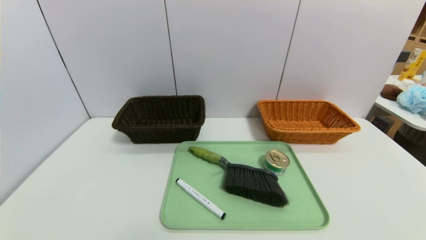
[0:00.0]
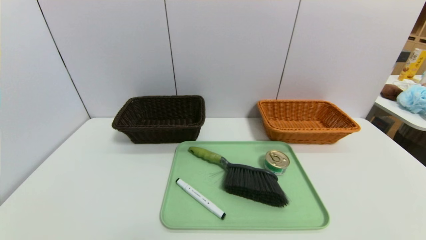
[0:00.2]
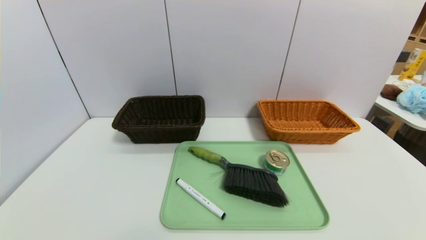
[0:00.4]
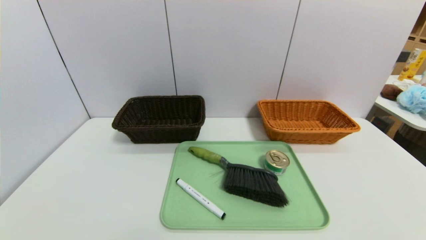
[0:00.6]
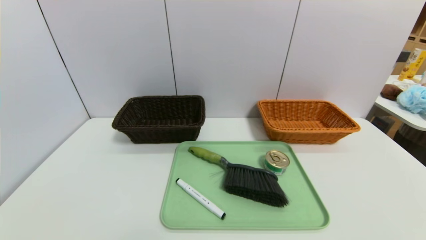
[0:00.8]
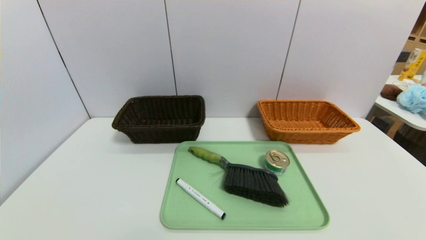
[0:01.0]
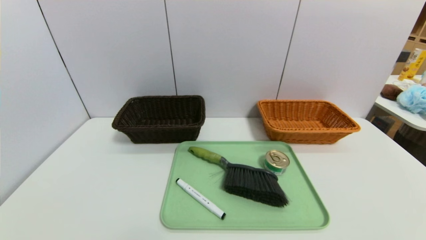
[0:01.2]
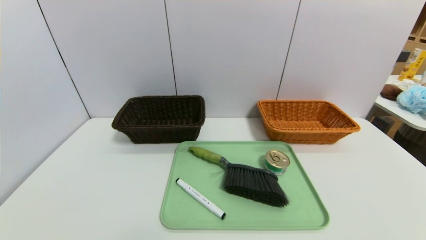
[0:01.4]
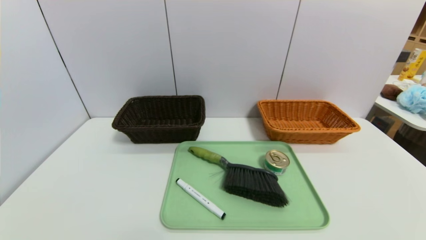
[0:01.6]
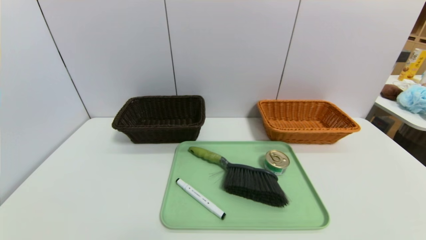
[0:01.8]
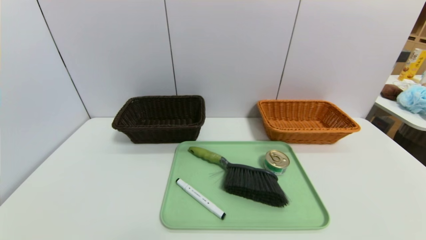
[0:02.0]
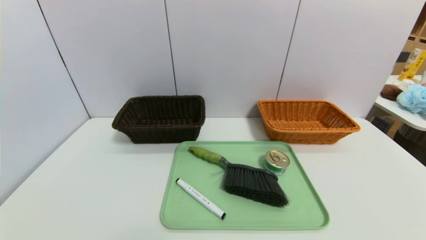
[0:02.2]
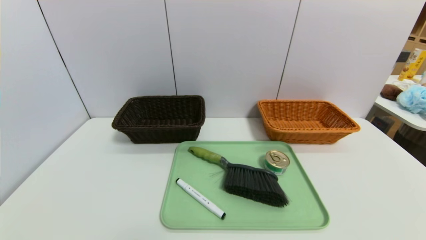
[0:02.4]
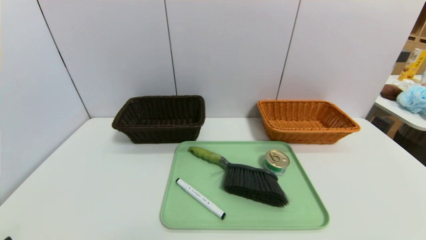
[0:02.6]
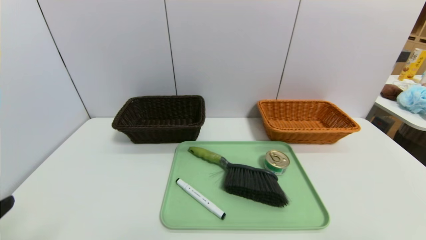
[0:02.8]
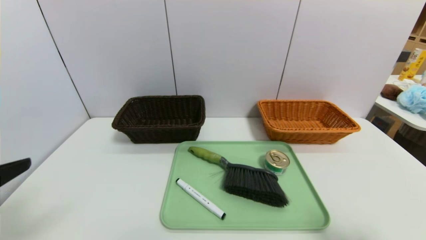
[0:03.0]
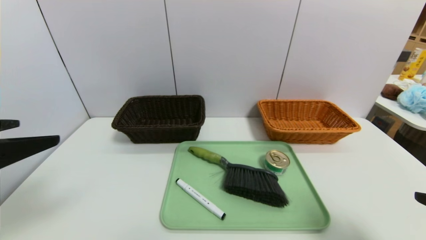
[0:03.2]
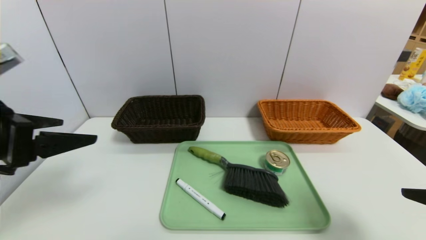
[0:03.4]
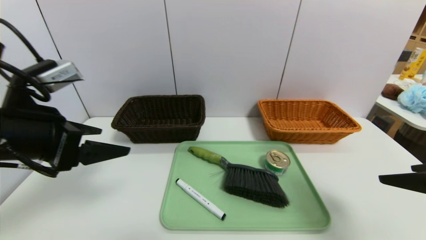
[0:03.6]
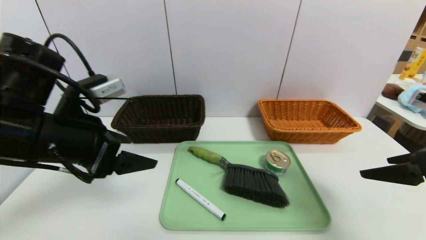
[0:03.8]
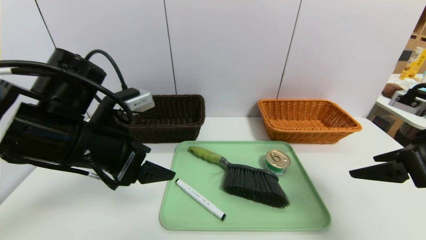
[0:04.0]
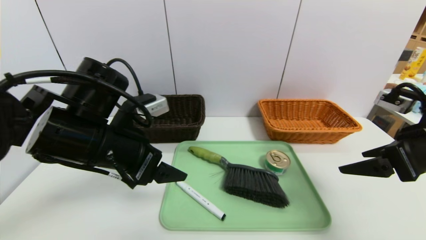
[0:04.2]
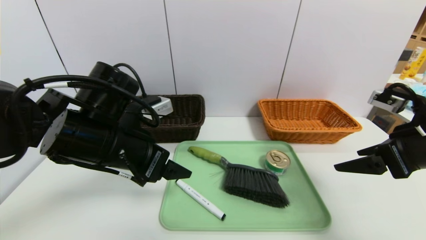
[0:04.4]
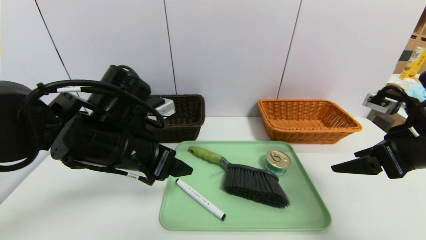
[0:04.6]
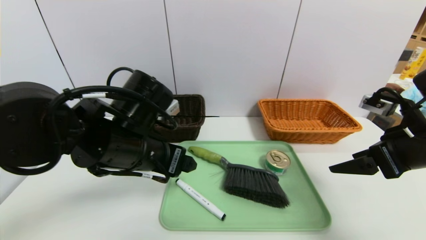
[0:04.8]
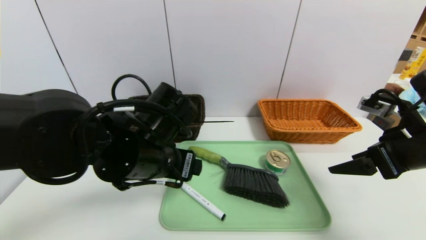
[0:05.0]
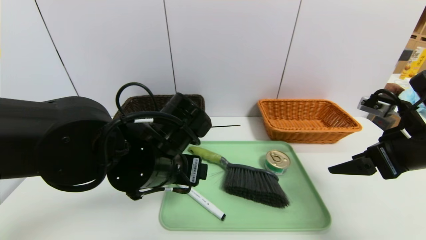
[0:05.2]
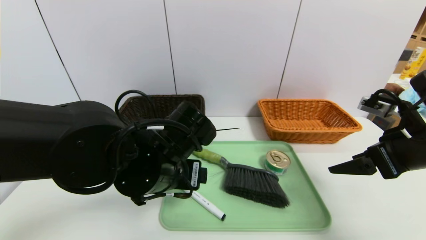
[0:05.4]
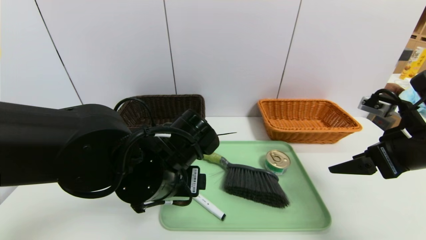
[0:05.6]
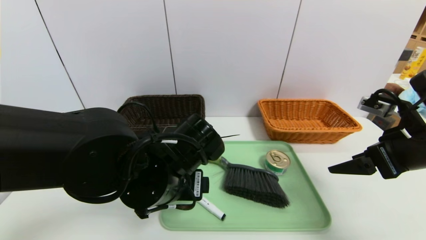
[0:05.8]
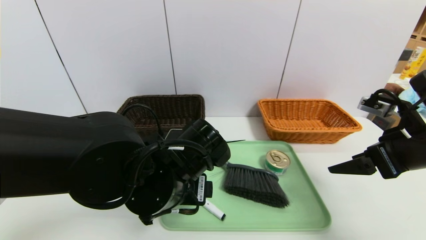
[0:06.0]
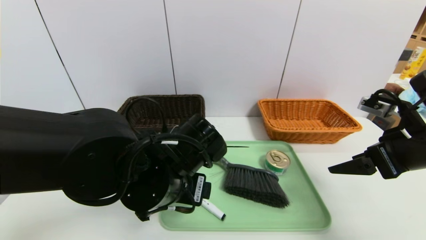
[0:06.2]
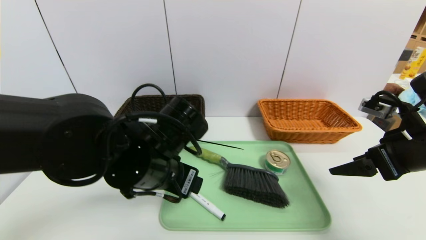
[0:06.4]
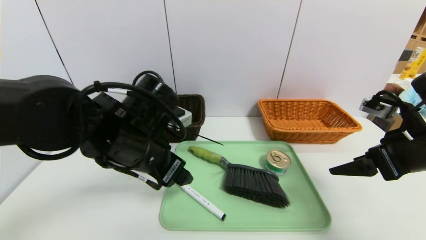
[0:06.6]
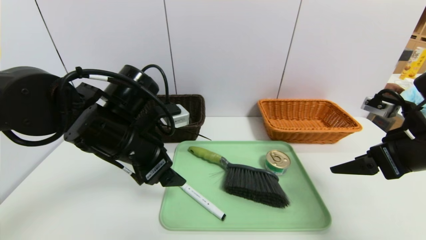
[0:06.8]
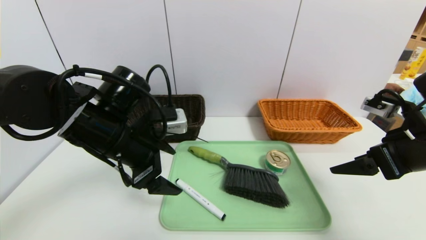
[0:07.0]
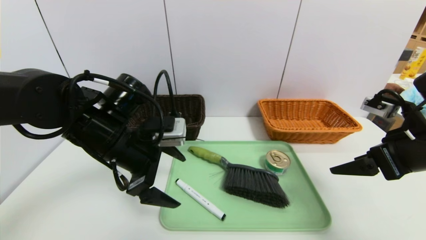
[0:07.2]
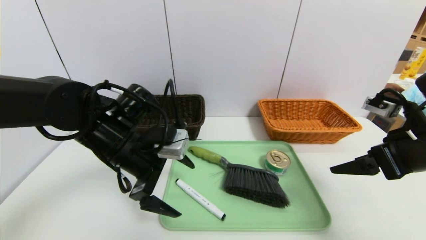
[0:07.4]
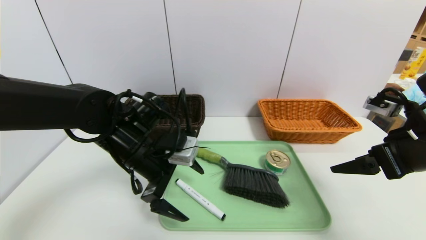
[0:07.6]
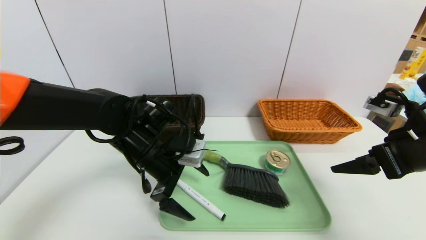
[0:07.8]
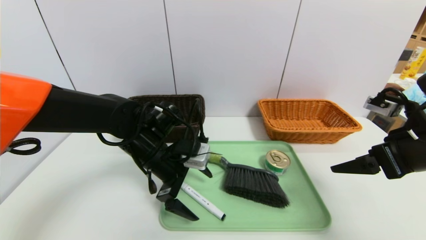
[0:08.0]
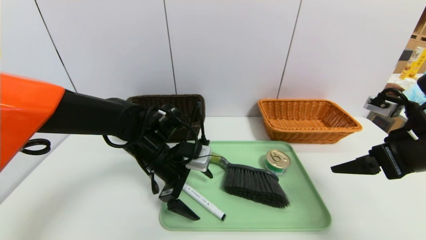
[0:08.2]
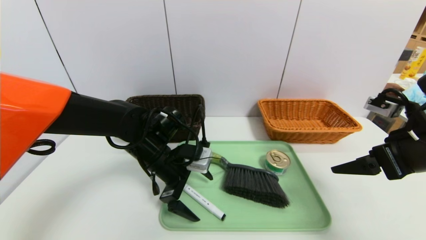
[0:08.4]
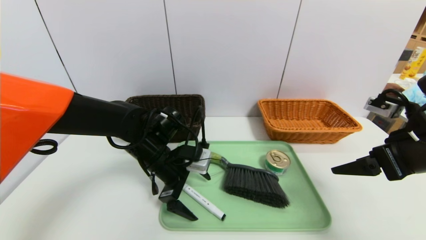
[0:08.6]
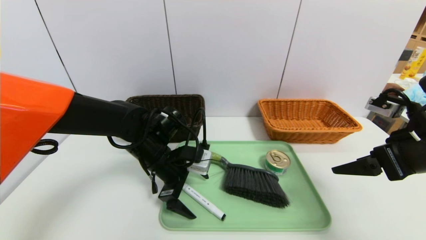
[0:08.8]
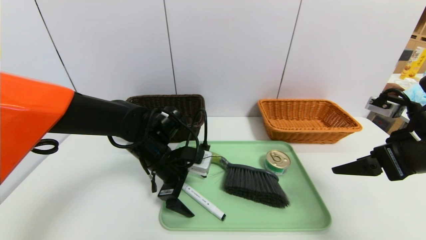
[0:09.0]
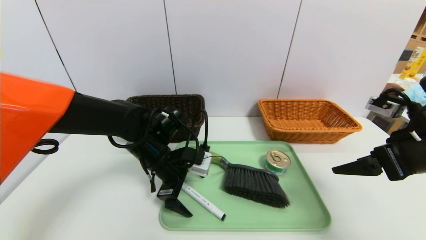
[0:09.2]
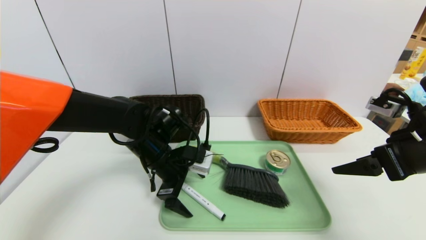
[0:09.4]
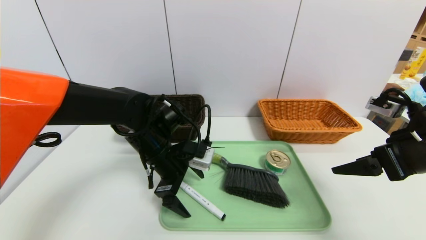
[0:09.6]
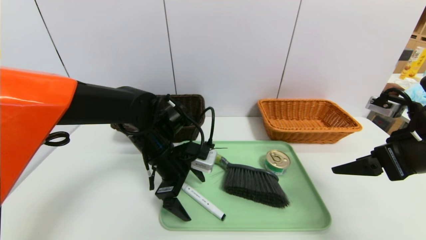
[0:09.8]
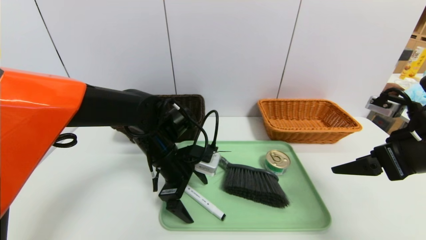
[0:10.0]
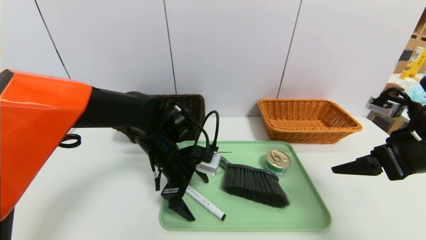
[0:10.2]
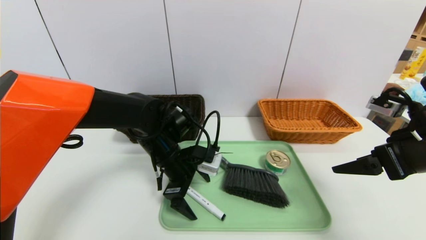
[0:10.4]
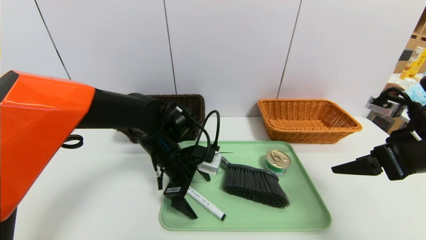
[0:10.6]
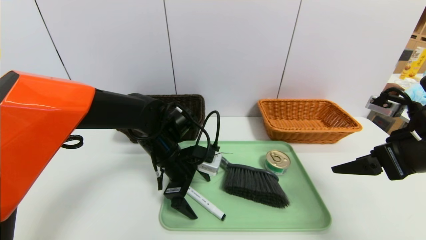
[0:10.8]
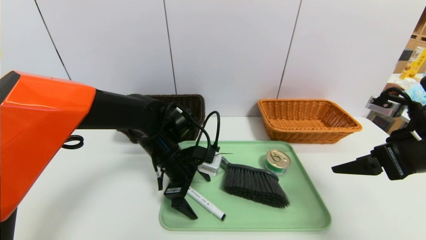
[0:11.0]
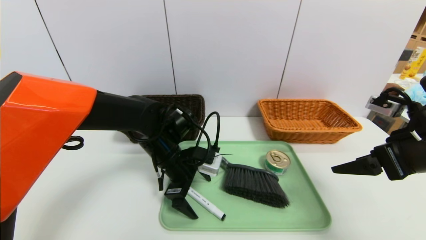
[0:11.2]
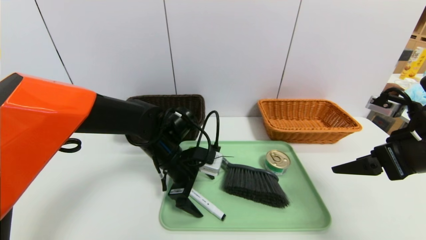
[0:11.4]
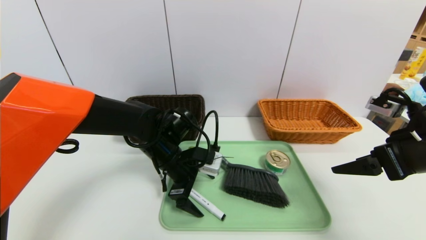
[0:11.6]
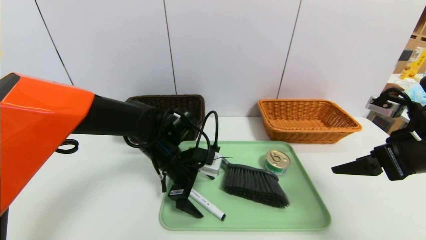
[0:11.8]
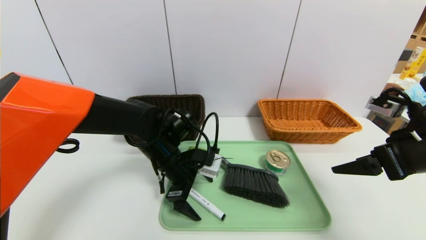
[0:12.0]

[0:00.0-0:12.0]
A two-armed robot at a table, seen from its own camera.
Task of the whole recording: place the food in the right basket with the right gripper, and place the non food items in the left basket with the left gripper.
0:00.0 to 0:01.6: Both grippers stay put.
0:01.6 to 0:03.0: The left gripper travels upward by roughly 20 cm.
0:03.0 to 0:04.4: The left gripper moves forward and to the right, some 20 cm. The right gripper travels forward by about 15 cm.
0:04.4 to 0:06.0: The left gripper goes some 10 cm to the right.
0:06.0 to 0:07.6: The left gripper travels forward and to the left by approximately 10 cm.
0:07.6 to 0:09.0: The left gripper moves roughly 5 cm.
0:09.0 to 0:12.0: The grippers move only a little.

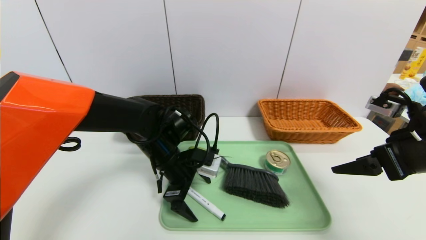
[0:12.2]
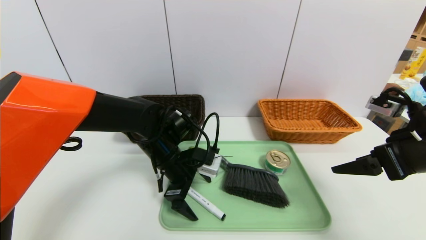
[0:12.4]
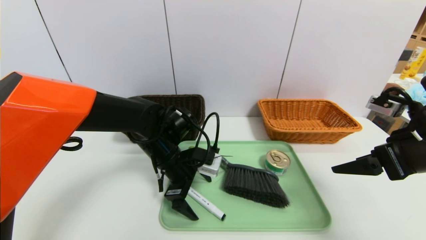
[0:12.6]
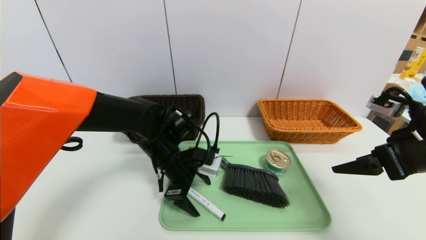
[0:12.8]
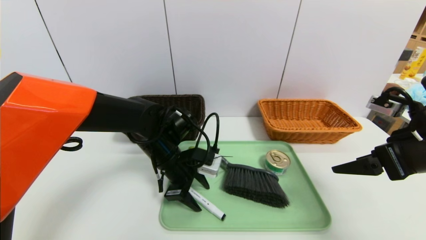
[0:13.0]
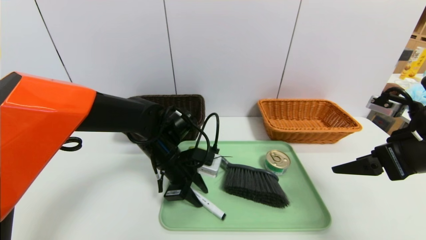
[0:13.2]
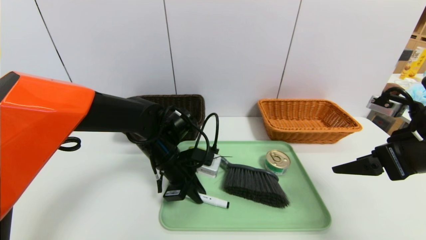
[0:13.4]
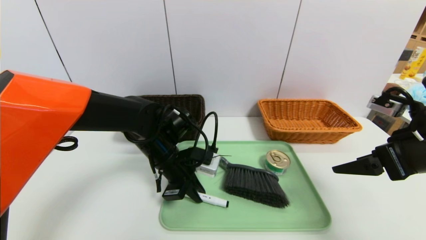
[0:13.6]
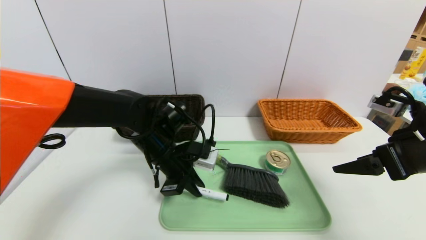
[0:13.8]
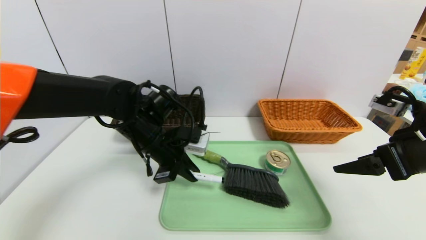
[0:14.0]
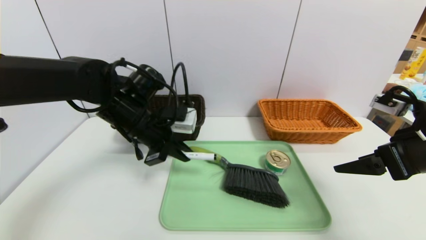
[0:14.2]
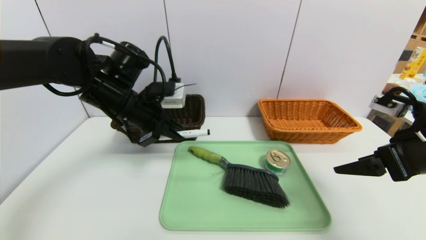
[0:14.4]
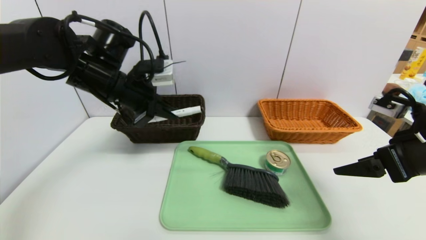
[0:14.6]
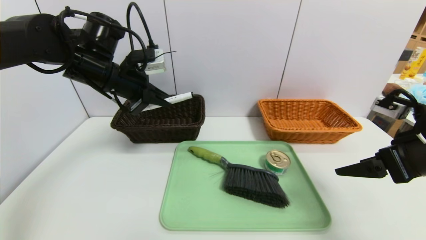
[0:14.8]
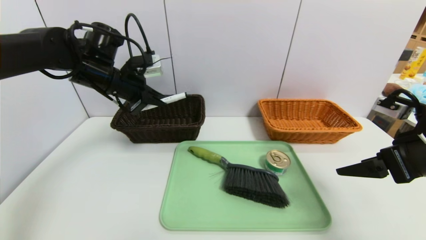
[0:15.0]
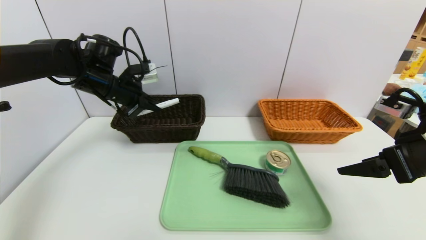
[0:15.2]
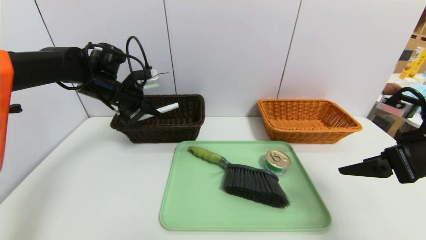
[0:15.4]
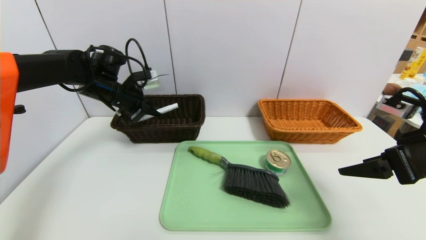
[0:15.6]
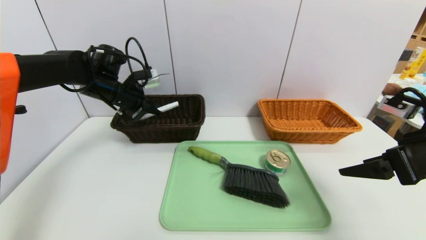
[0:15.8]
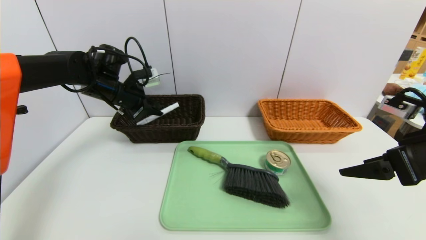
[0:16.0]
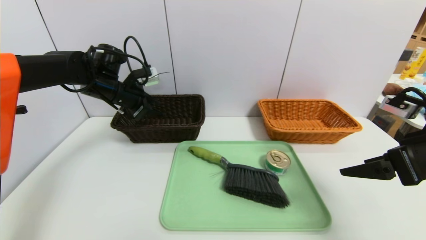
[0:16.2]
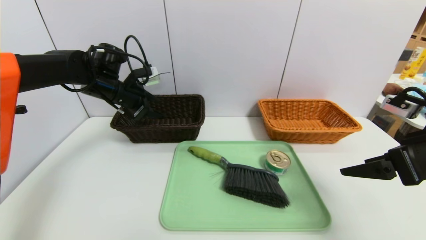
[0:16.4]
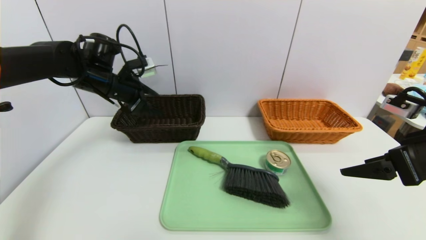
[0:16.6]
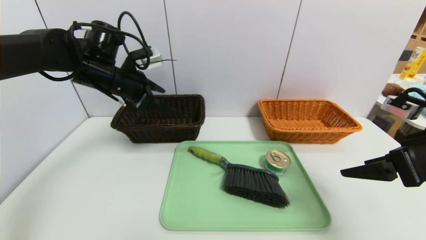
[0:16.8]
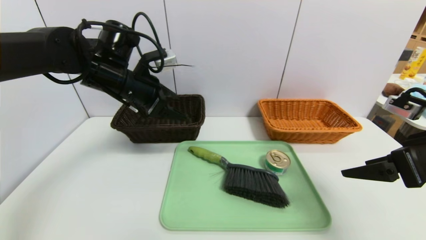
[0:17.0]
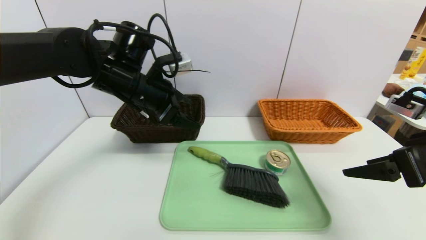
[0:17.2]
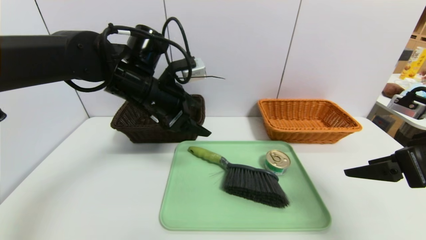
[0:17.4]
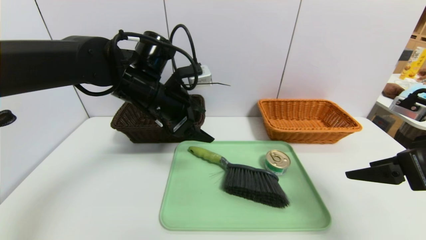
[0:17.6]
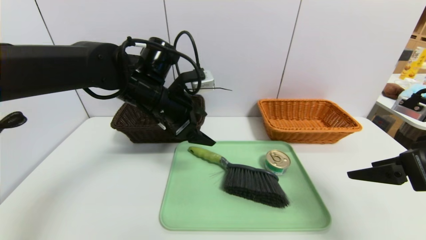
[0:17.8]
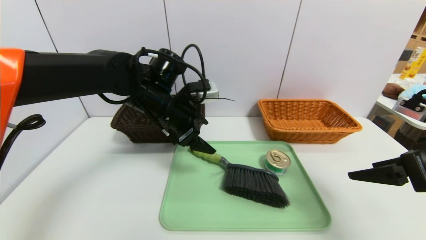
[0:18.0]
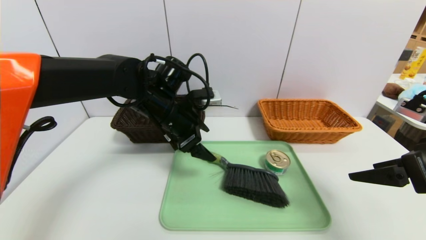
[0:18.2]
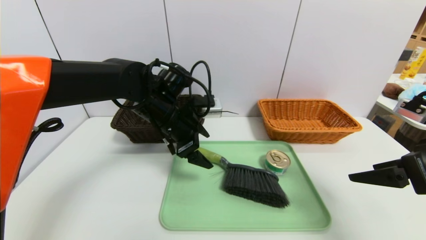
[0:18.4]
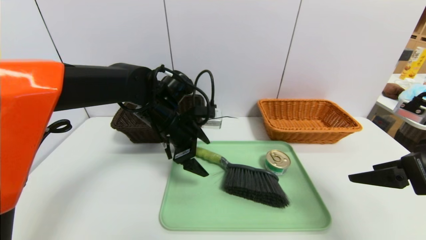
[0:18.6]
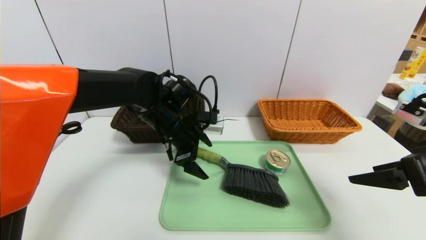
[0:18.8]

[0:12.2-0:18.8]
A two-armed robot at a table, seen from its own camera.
Task of the whole recording: place the food in the right basket with the right gripper, and place the non food items in the left basket with the left gripper.
Step, 0:12.2 to 0:16.2: Grasp the pen container and put it in the left basket.
0:12.2 to 0:13.8: The left gripper closes.
0:13.8 to 0:15.4: The left gripper is displaced to the left, forward and upward by about 20 cm.
0:15.4 to 0:17.2: The left gripper heads to the right and backward, covering some 15 cm, and opens.
0:17.2 to 0:18.8: The left gripper goes roughly 10 cm downward and to the right.
